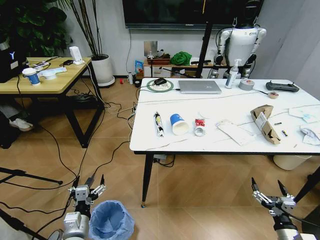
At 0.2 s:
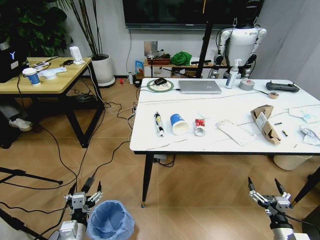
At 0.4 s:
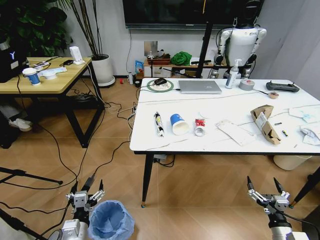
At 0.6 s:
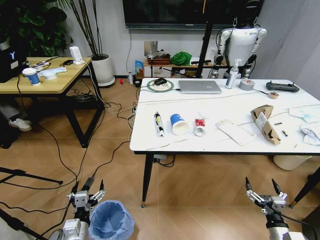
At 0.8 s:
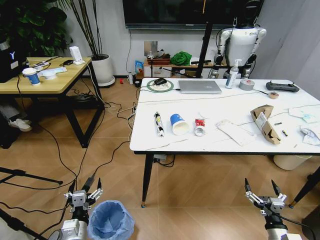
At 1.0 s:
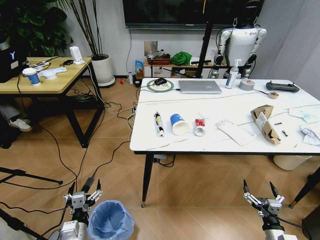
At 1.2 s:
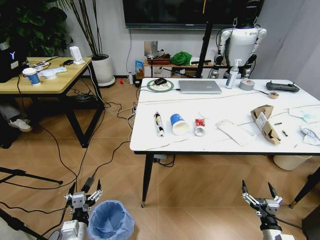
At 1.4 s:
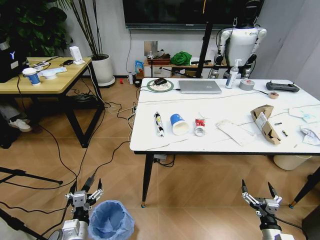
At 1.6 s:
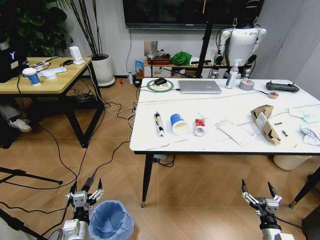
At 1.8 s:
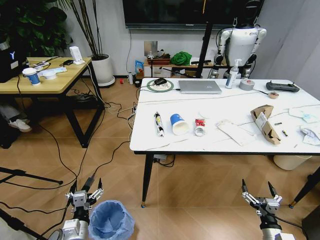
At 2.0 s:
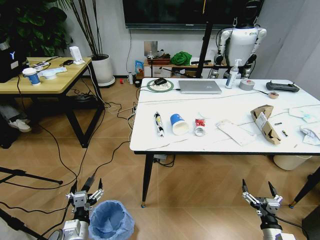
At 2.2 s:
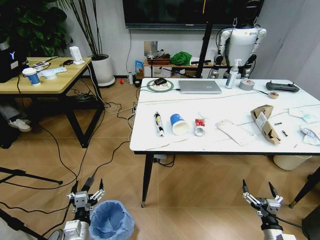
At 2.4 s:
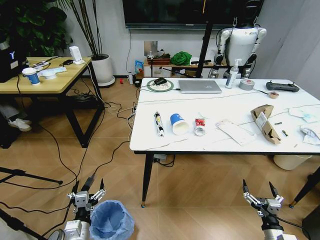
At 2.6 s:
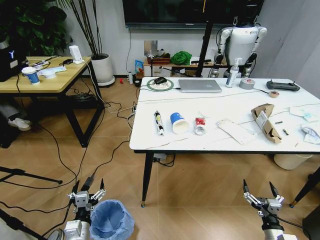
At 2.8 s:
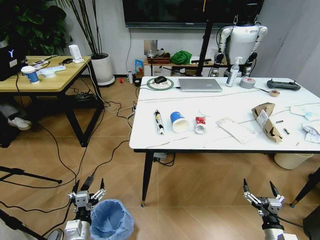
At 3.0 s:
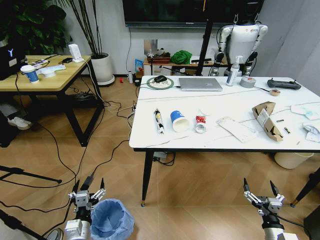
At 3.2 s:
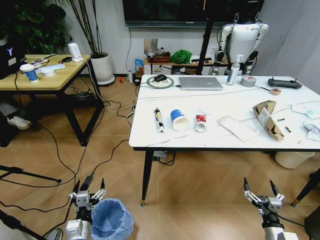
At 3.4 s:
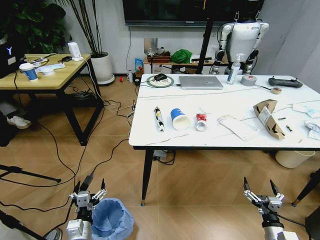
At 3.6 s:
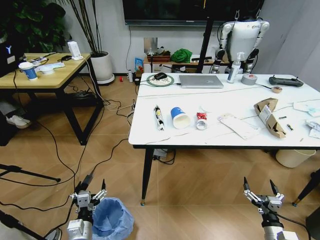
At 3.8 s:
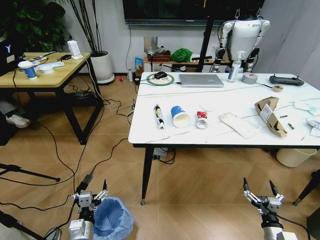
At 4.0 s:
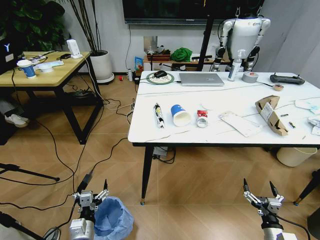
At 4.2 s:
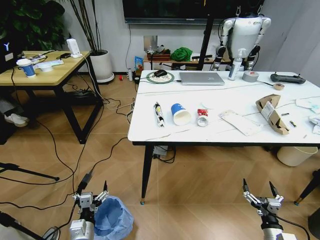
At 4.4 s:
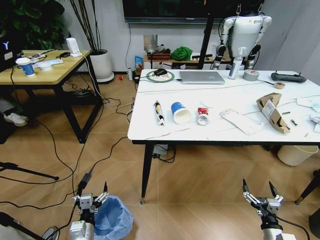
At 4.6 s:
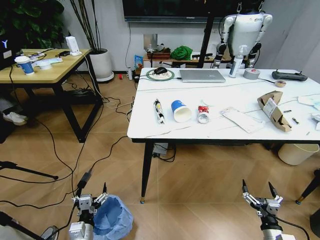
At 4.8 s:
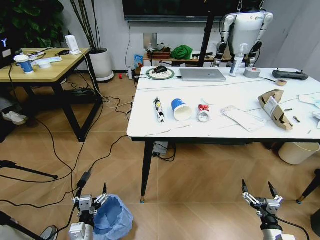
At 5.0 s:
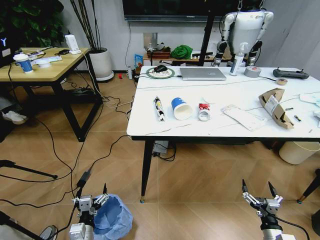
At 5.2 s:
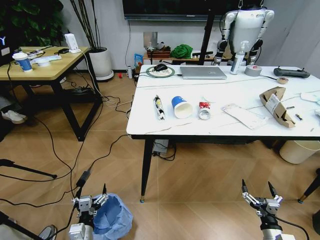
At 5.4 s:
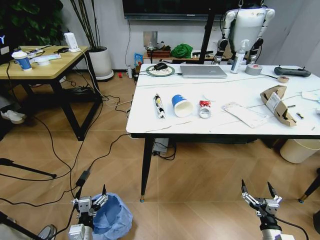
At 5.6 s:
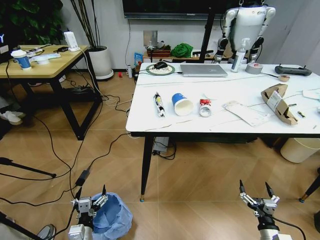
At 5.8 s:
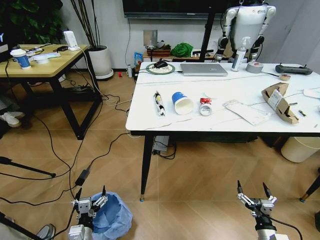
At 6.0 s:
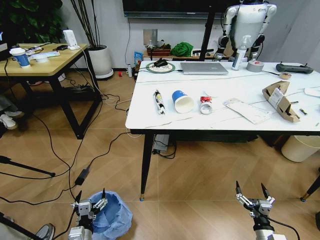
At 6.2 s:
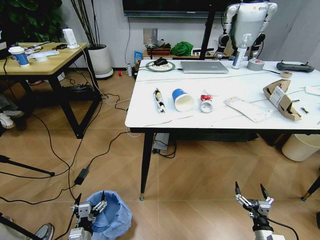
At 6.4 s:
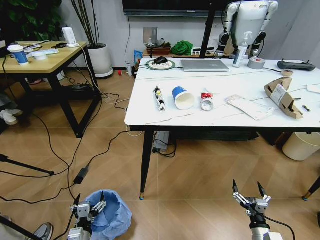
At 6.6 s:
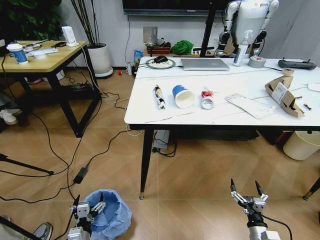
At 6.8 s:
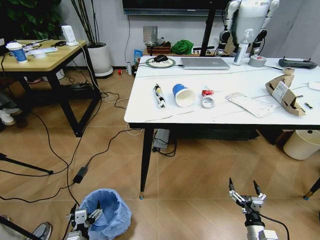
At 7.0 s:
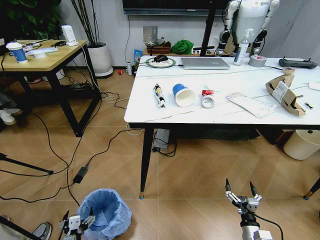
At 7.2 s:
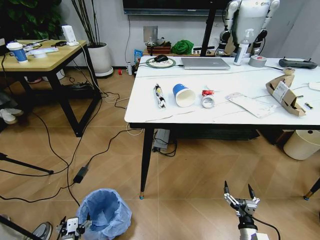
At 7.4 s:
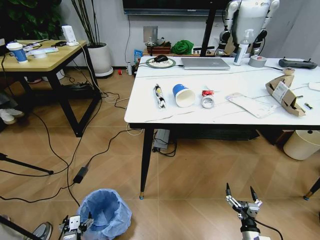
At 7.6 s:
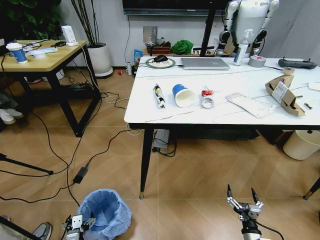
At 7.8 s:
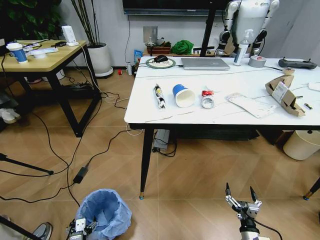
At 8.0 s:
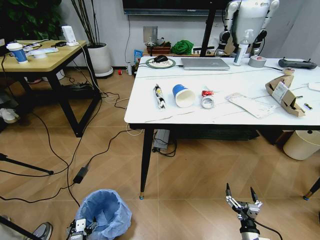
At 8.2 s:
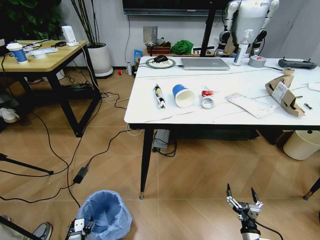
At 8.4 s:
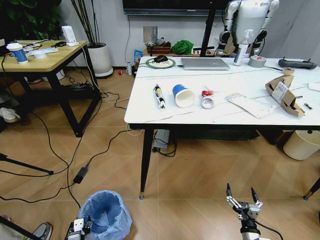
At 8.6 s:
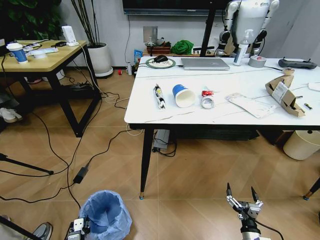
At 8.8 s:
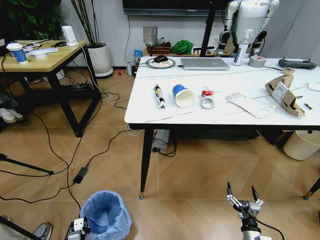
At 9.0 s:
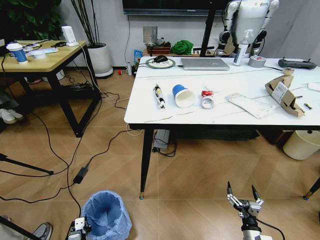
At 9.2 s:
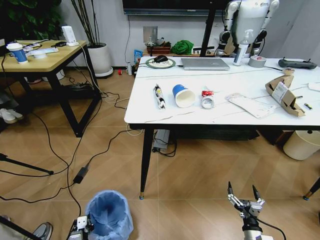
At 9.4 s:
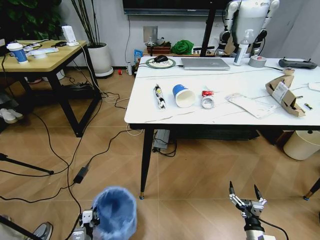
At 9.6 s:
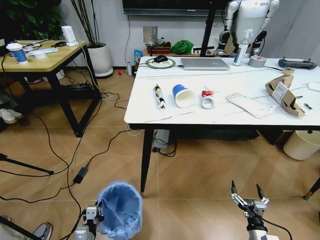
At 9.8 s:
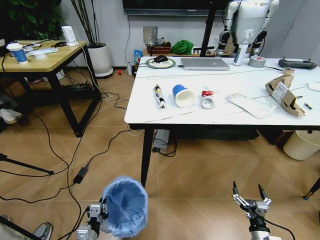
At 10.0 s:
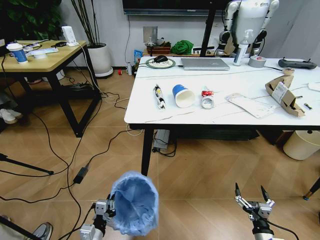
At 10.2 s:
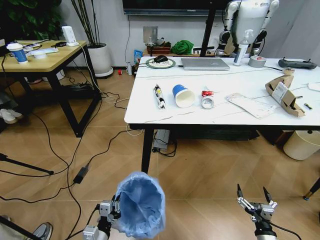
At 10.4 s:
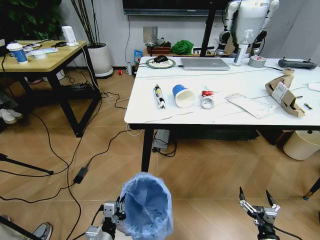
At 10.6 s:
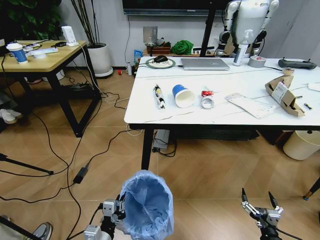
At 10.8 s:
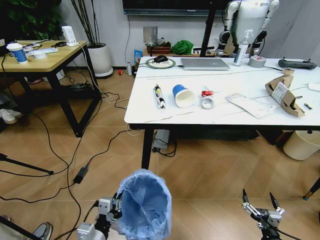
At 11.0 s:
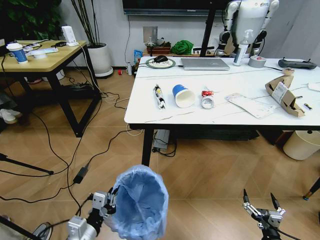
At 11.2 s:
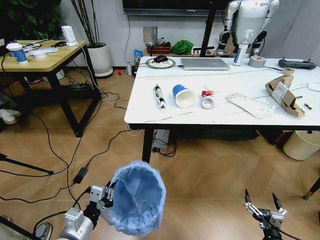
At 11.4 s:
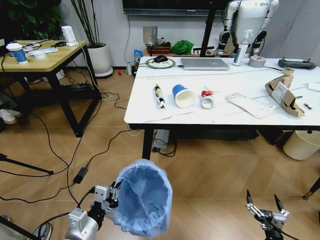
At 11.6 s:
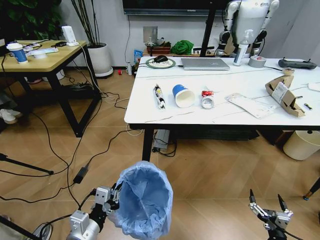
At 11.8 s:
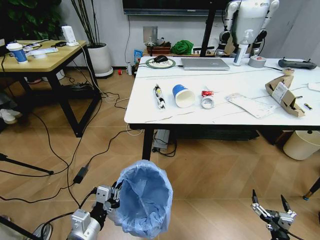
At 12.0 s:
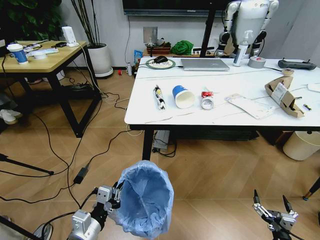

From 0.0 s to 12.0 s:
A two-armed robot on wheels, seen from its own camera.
Task of the whole recording: Pick up the trash bin and place the trash from the table into it.
From 1.6 s to 3.0 s: The two grippers keep their place.
From 6.0 s to 7.6 s: The left gripper heads downward and to the left, covering some 10 cm.
From 7.6 s to 9.0 s: The left gripper closes.
From 9.0 s to 10.4 s: The right gripper ends up some 5 cm from where it was, while the left gripper is displaced upward and to the right by approximately 20 cm.
From 10.4 s to 12.0 s: The left gripper shifts roughly 10 cm upward.

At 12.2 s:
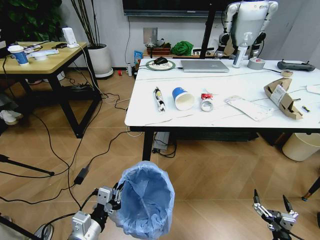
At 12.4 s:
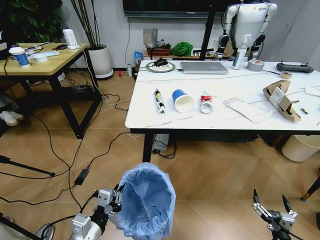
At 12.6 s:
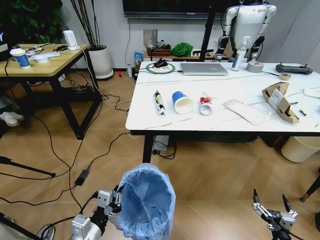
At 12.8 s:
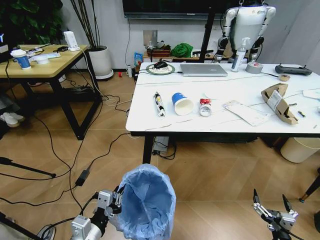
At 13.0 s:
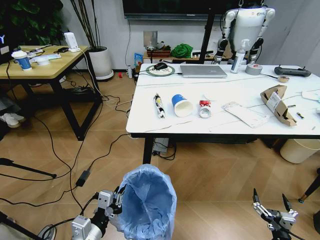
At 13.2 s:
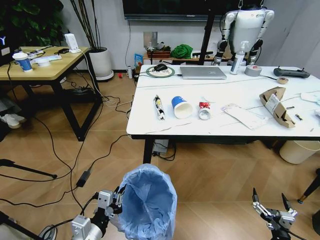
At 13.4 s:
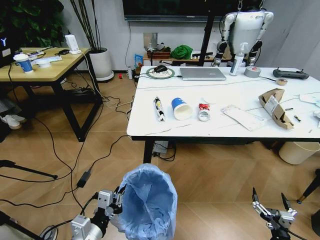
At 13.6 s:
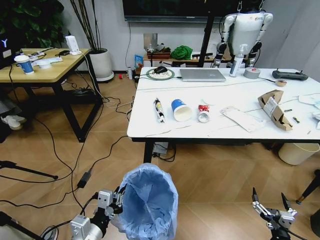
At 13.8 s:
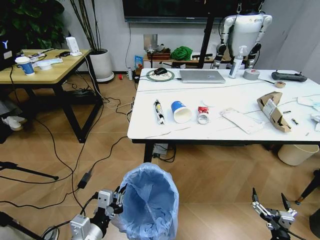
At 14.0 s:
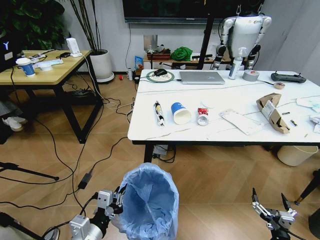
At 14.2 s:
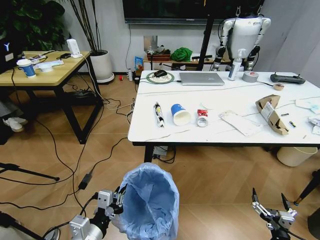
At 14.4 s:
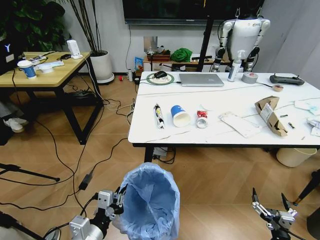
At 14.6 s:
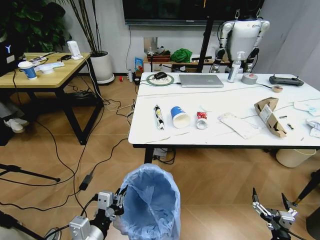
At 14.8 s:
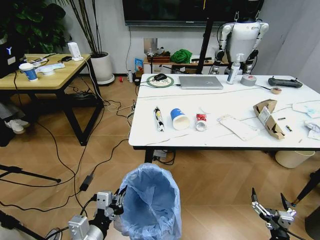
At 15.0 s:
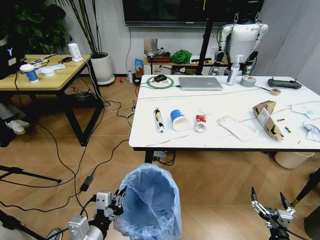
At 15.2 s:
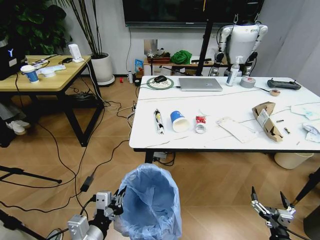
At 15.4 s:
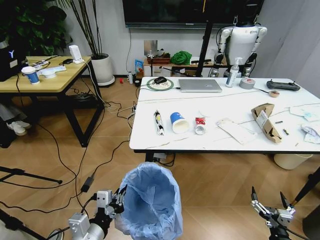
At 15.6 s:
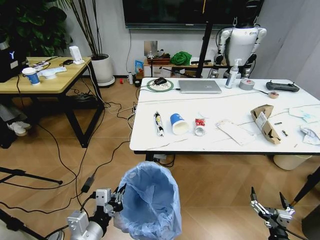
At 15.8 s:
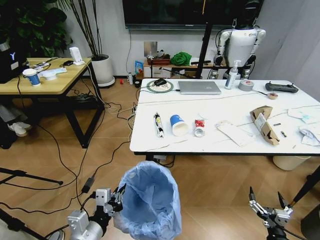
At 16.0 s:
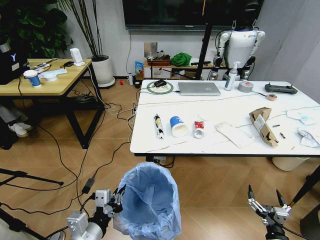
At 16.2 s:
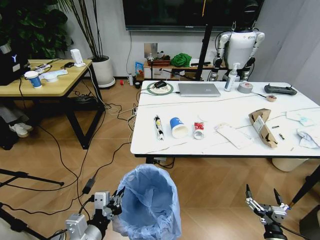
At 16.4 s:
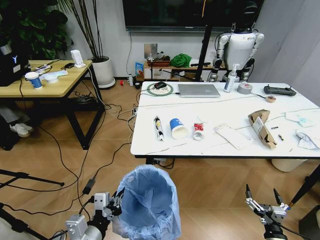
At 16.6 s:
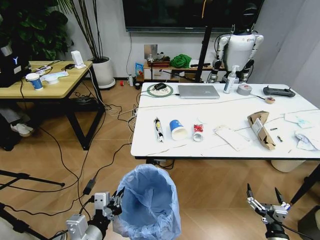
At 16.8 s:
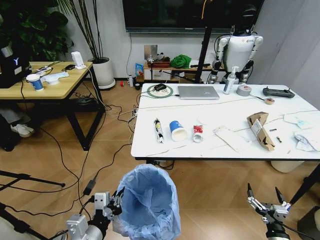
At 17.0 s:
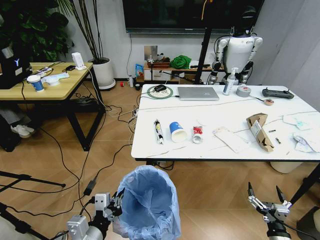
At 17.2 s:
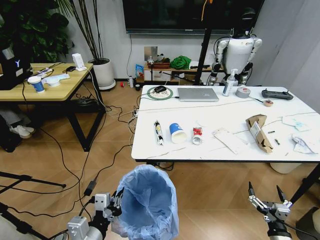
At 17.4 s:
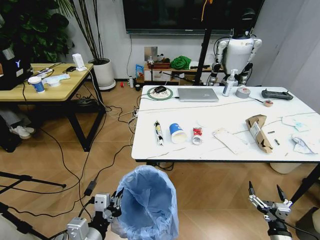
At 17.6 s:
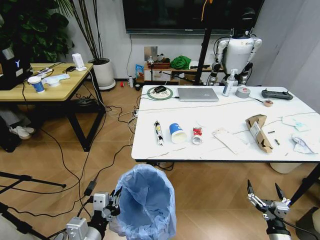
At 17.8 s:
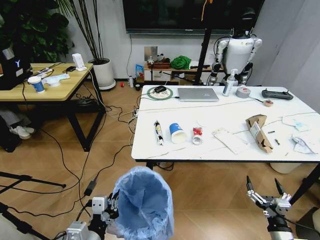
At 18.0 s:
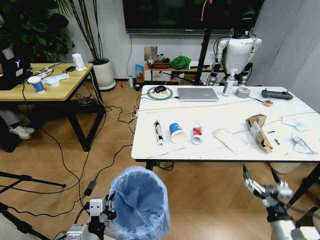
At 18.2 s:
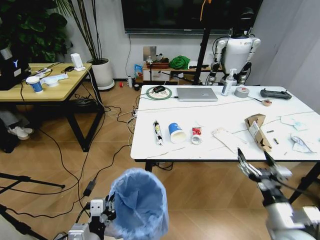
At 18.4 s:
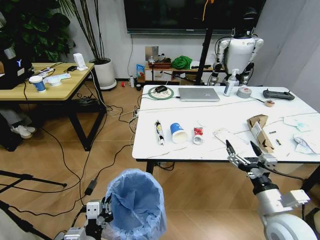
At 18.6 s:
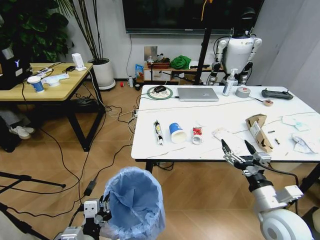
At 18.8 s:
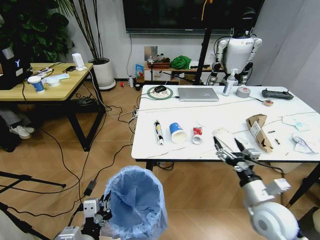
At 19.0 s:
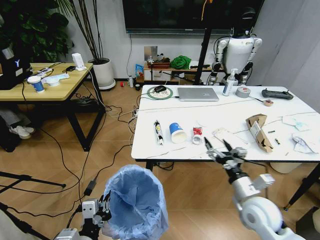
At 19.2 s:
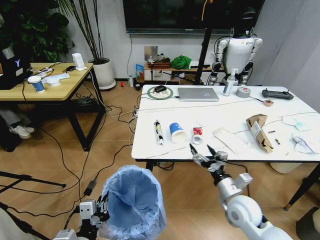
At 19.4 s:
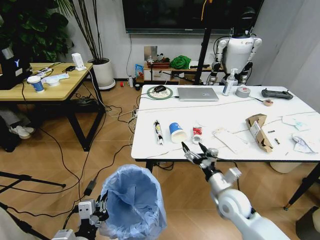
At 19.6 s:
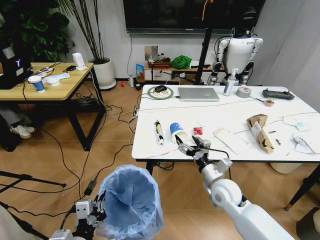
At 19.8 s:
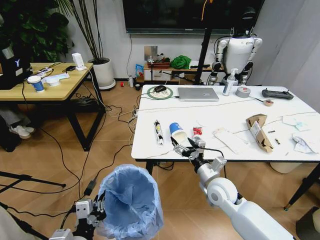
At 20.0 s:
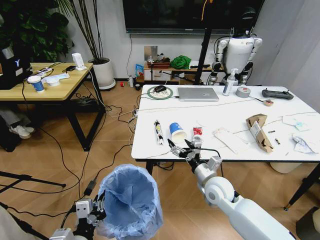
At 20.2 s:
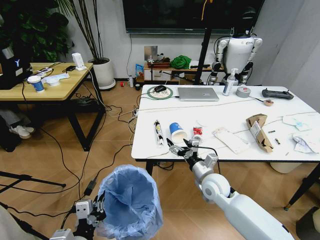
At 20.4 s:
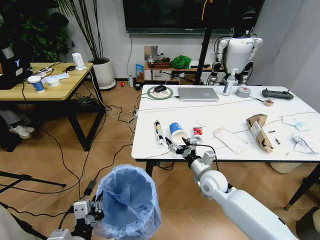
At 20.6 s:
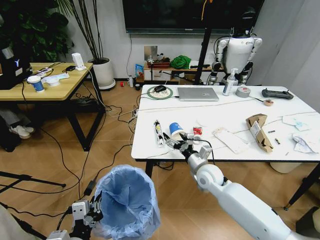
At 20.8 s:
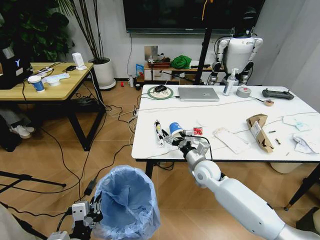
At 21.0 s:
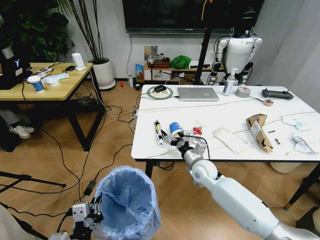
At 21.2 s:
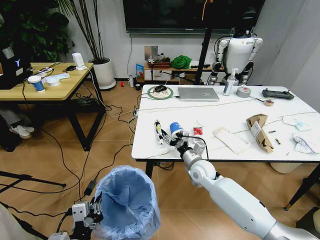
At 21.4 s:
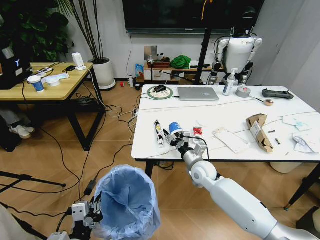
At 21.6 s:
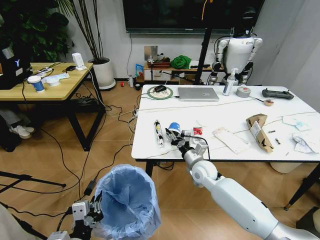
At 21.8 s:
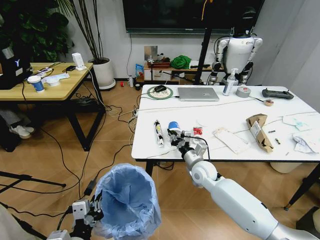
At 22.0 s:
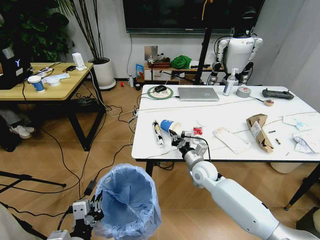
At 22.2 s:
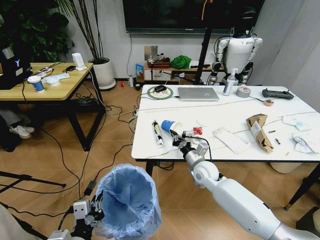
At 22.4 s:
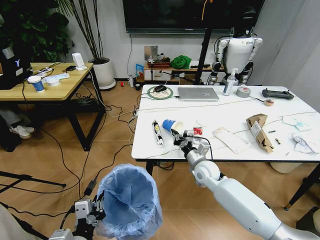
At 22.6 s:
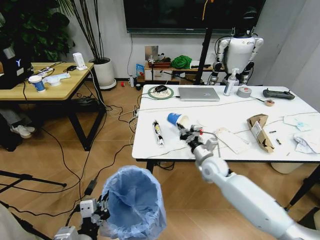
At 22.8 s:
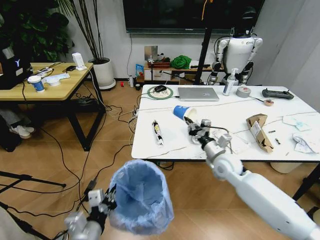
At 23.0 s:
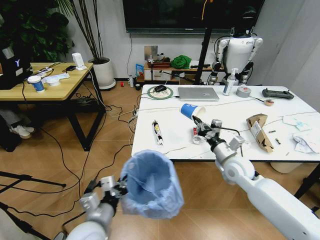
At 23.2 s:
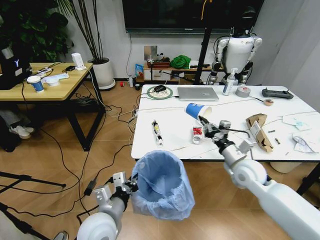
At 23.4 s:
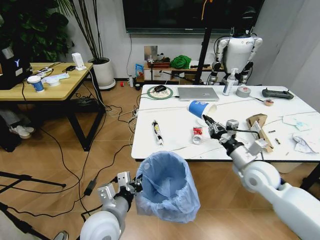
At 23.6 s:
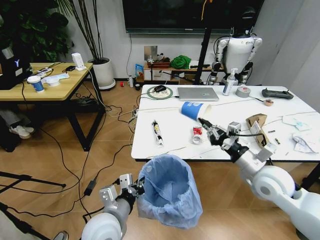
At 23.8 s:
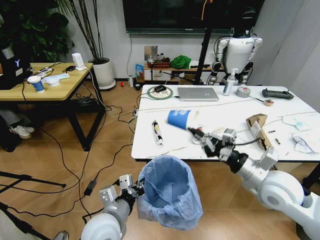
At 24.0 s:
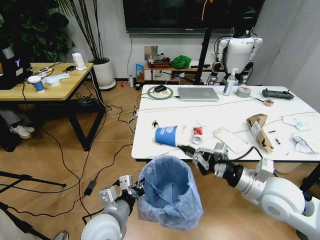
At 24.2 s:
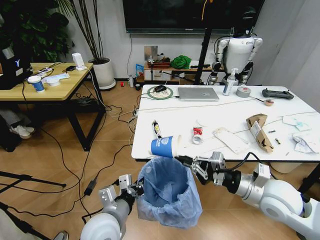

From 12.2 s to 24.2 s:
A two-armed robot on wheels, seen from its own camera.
Task of the whole recording: Pick up the trash bin and place the trash from the table into it.
From 16.6 s to 18.2 s: The right gripper is displaced upward by roughly 15 cm.
From 18.2 s to 19.8 s: The right gripper heads forward and to the left, covering approximately 20 cm.
From 19.8 s to 21.2 s: The right gripper travels forward by some 10 cm.
From 21.2 s to 22.6 s: The right gripper closes up.
From 22.6 s to 24.2 s: The left gripper shifts some 10 cm forward and to the right. Meanwhile the right gripper travels backward, upward and to the right by about 20 cm.
